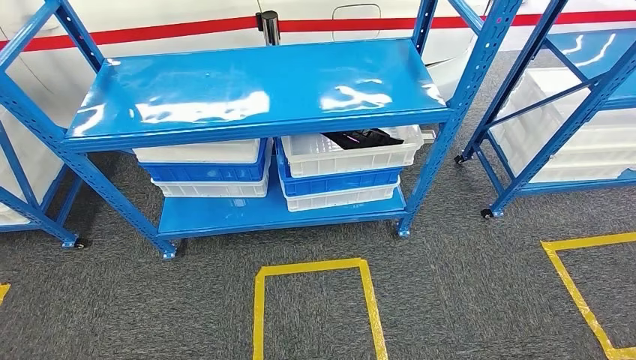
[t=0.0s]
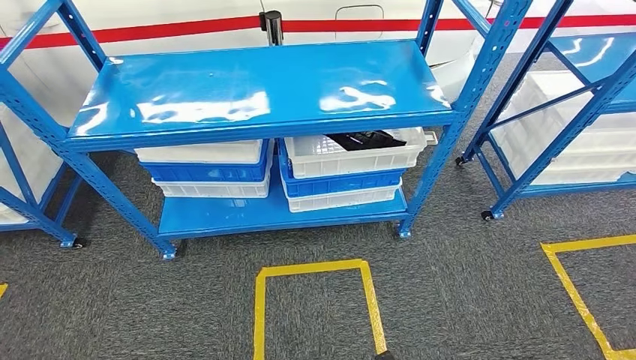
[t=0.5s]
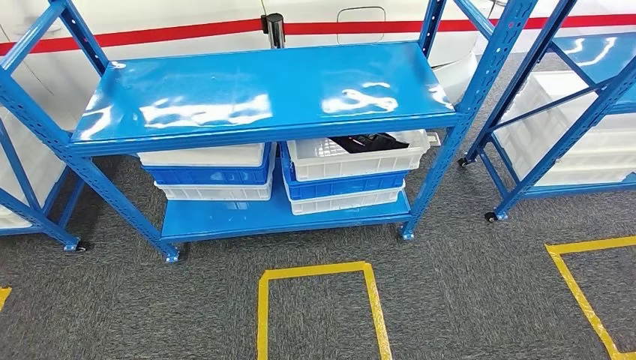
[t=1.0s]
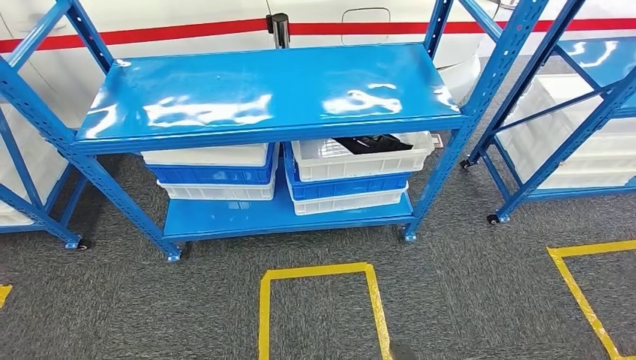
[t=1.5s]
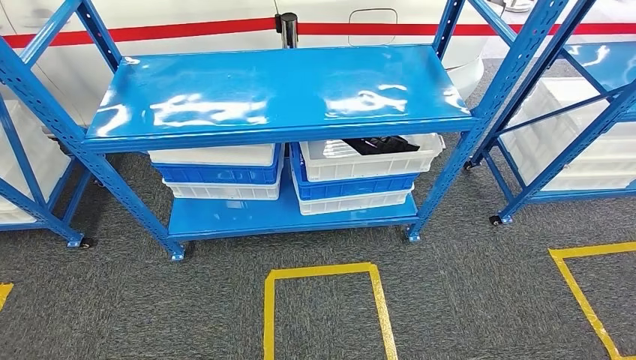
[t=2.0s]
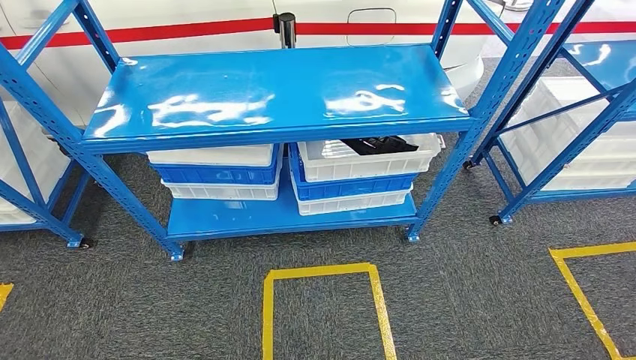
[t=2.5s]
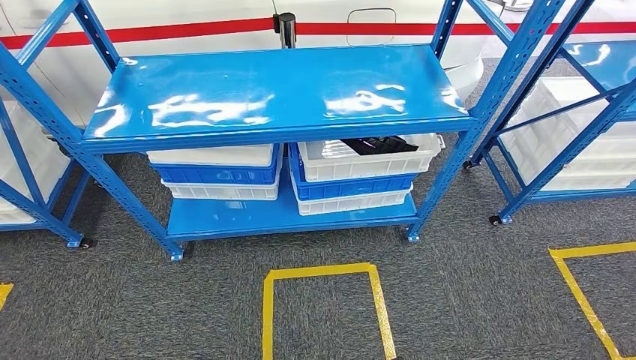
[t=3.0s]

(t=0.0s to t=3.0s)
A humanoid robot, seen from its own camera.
Step, t=0.0s - t=3.0s: Return to the initial position at the shelf.
t=1.5s - t=3.0s: The left hand goes some 10 cm forward.
